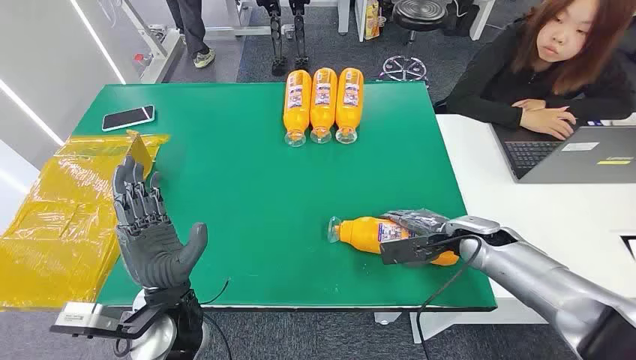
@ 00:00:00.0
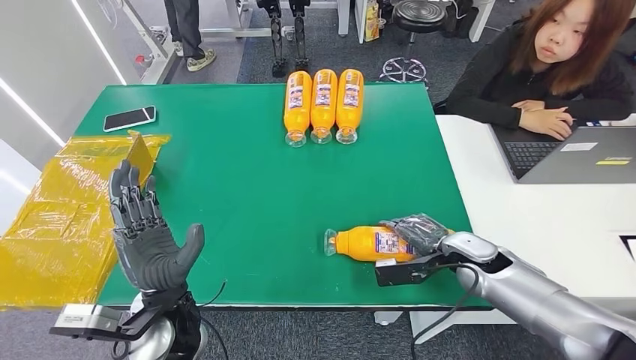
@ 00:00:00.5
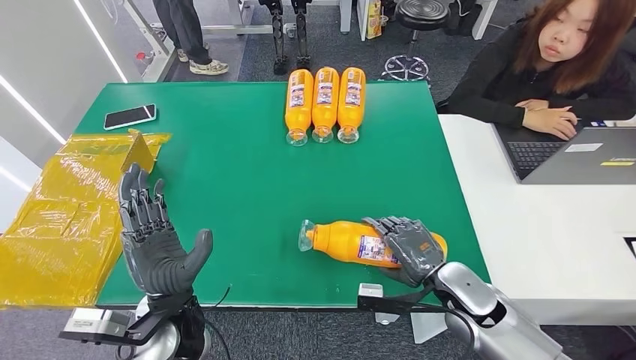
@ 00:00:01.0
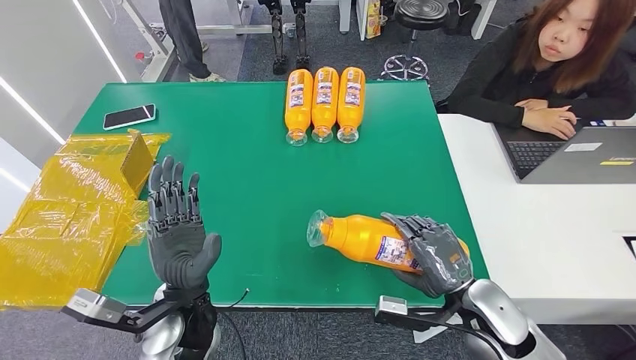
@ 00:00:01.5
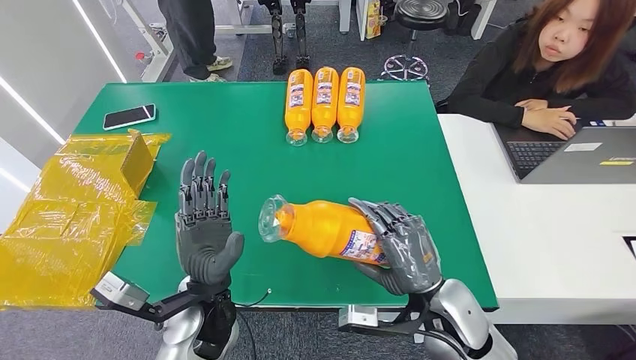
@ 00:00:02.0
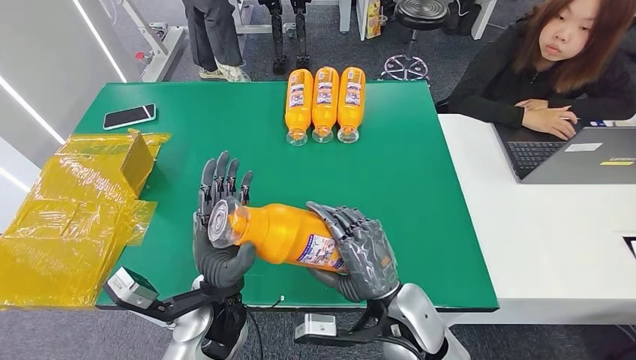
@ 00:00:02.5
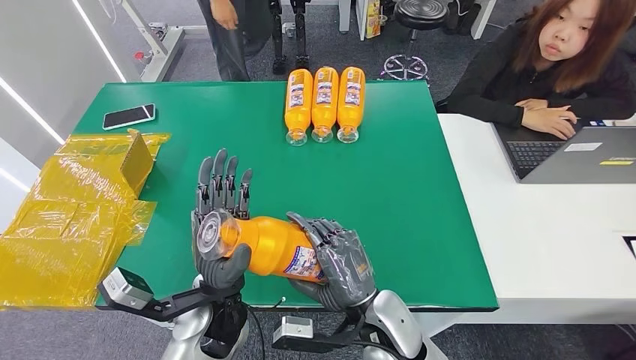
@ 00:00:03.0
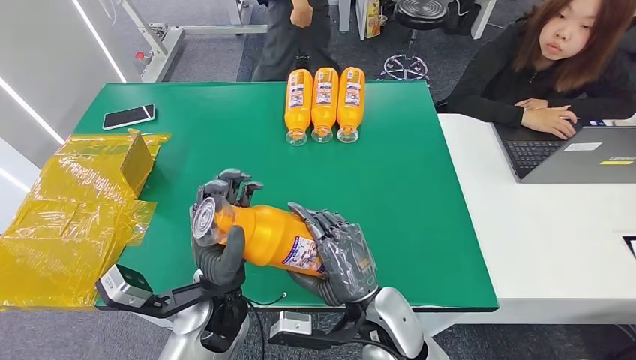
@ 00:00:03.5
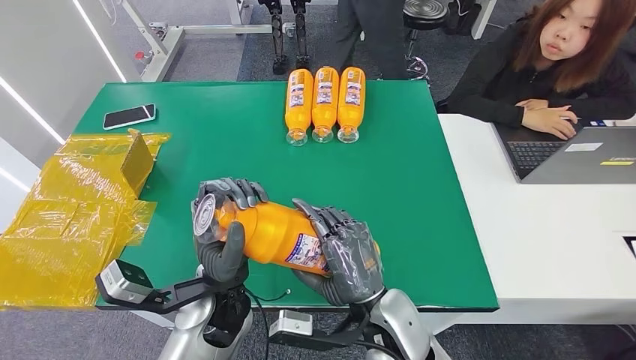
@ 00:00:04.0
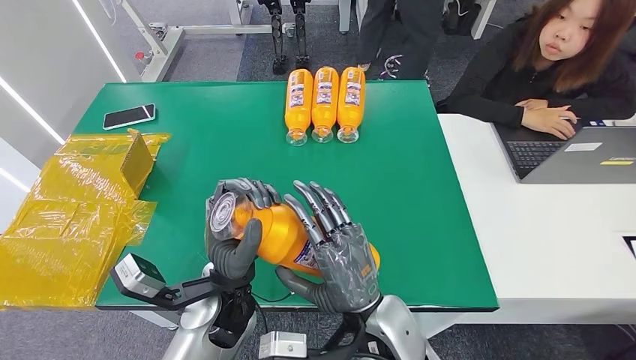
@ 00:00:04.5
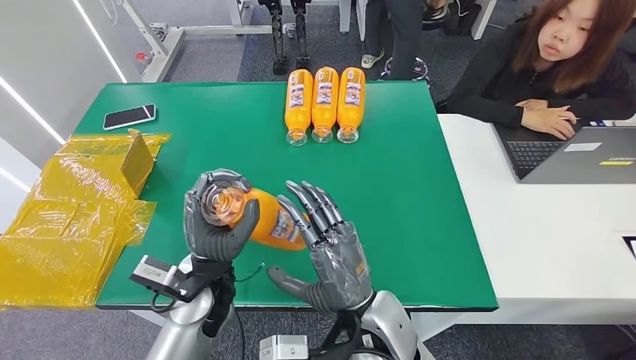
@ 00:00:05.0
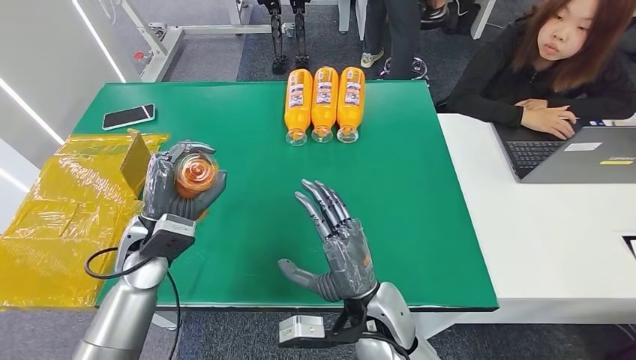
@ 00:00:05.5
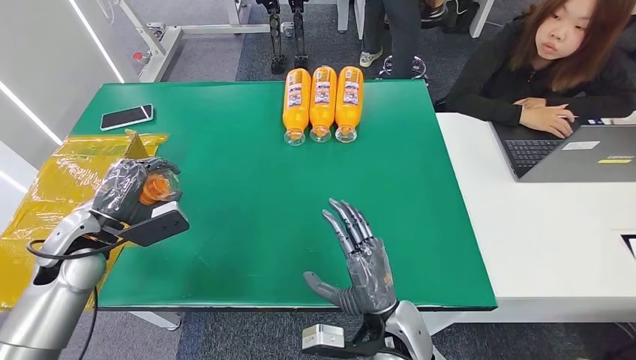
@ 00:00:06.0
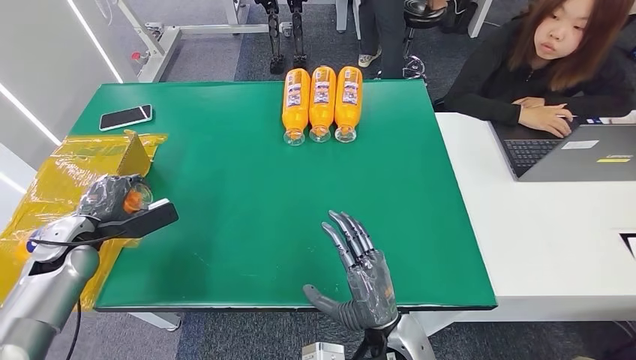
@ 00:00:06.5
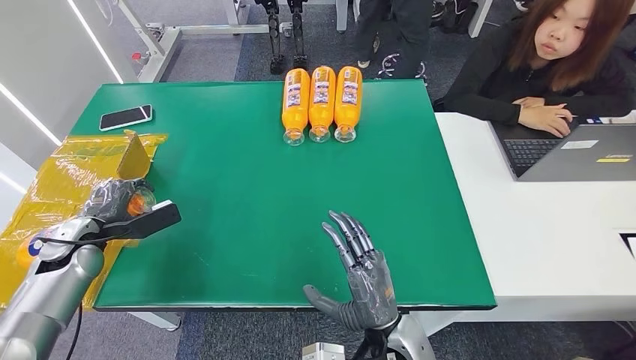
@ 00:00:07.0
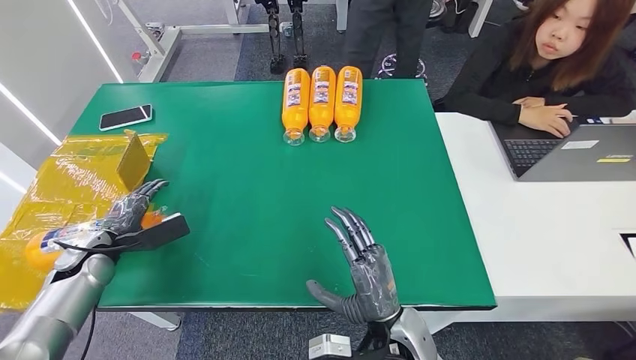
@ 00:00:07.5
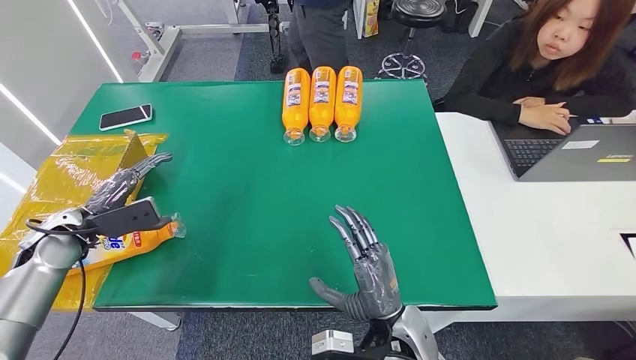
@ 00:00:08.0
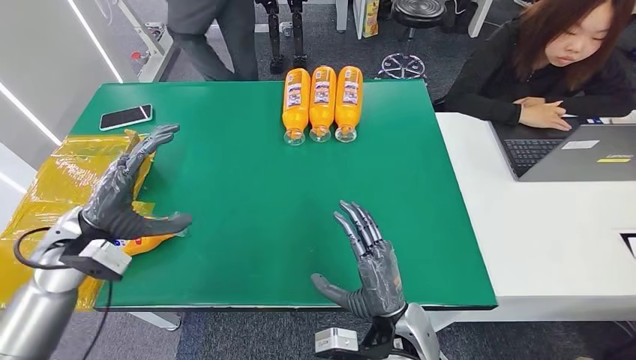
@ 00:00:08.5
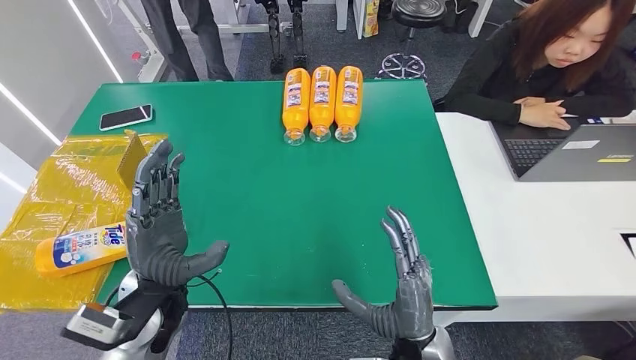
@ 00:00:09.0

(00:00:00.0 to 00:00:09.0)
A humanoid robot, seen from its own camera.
Step, 00:00:00.0 - 00:00:02.5: Pick up the bottle from the table.
Step, 00:00:03.0 - 00:00:09.0: Turn the bottle to the front side.
00:00:02.0 - 00:00:04.5: The right hand is displaced to the left by roughly 10 cm.
00:00:07.0 - 00:00:09.0: The left hand goes approximately 25 cm to the right.
